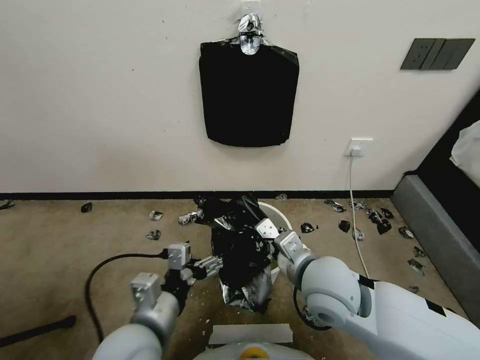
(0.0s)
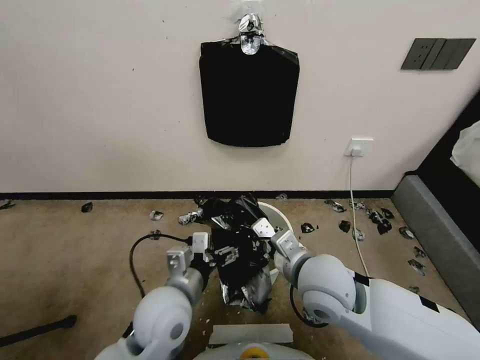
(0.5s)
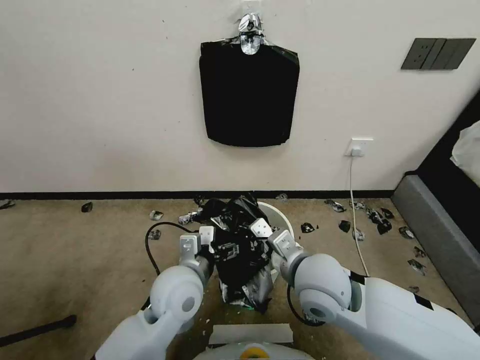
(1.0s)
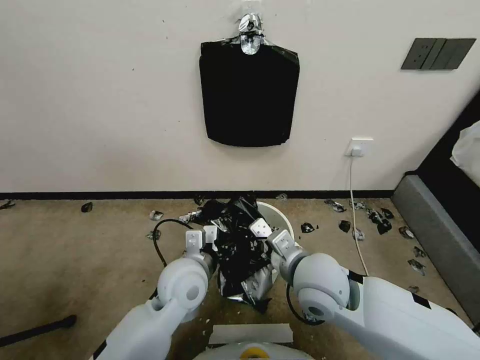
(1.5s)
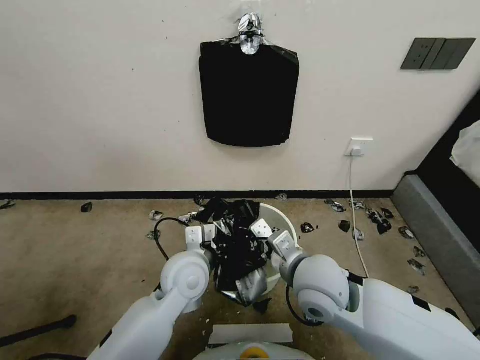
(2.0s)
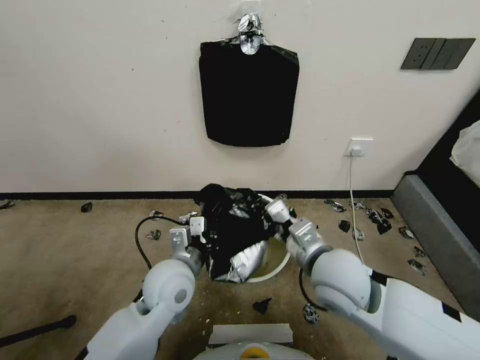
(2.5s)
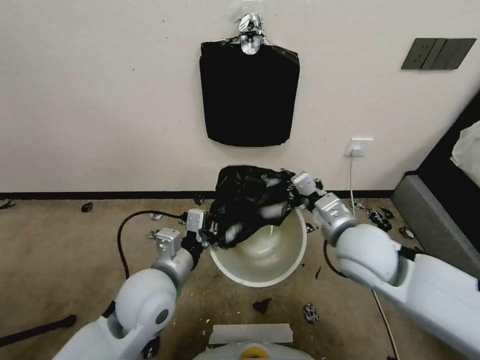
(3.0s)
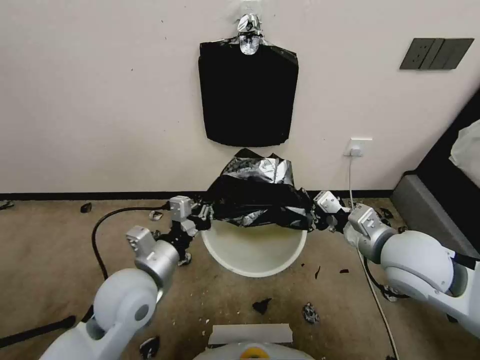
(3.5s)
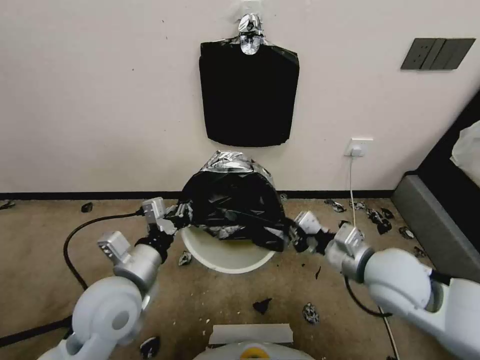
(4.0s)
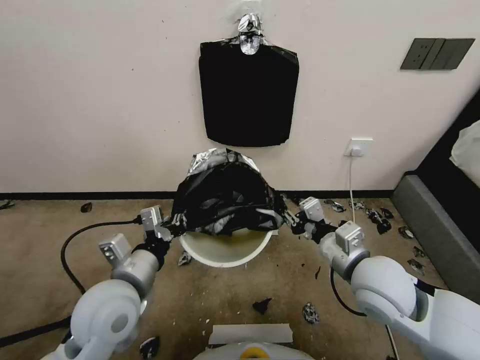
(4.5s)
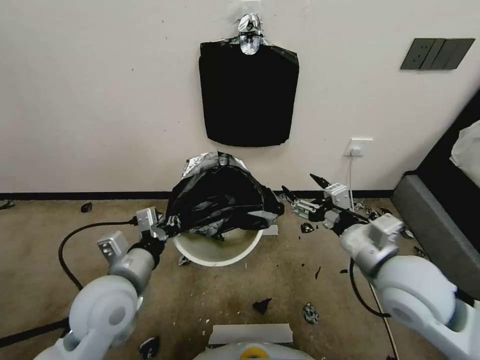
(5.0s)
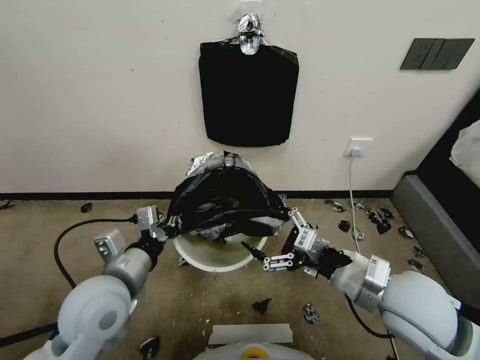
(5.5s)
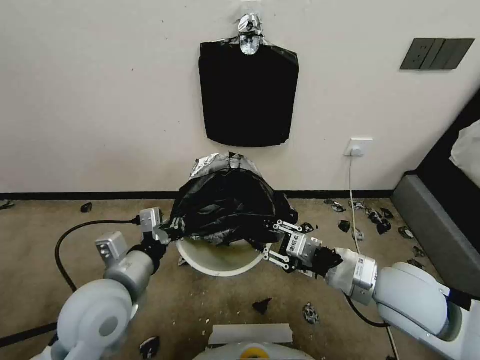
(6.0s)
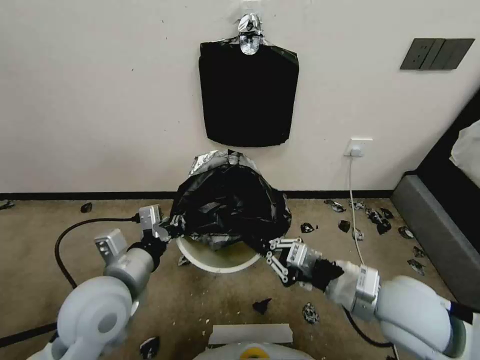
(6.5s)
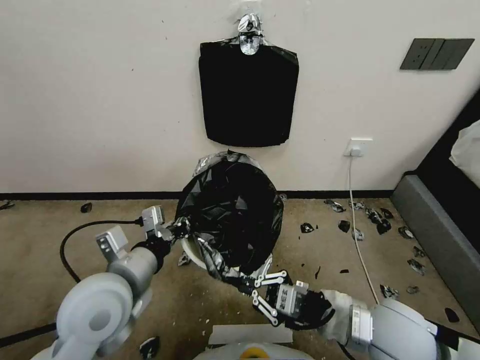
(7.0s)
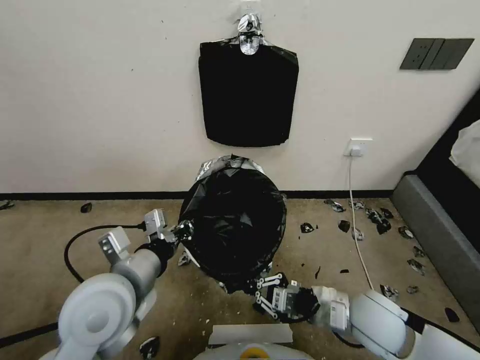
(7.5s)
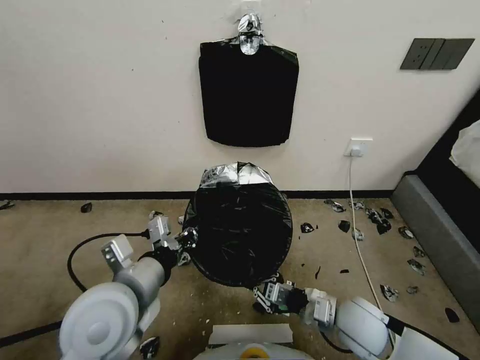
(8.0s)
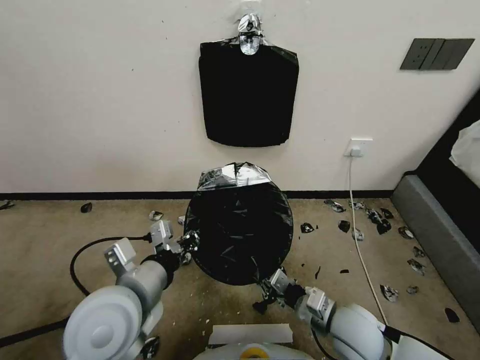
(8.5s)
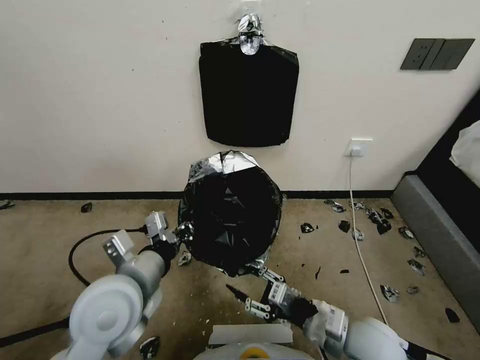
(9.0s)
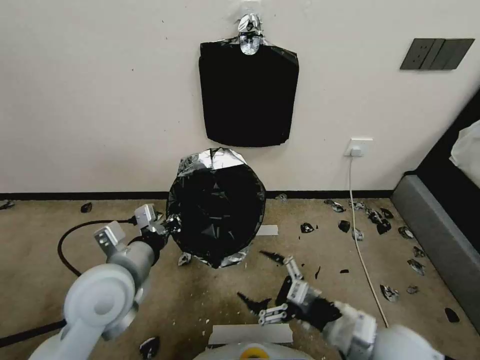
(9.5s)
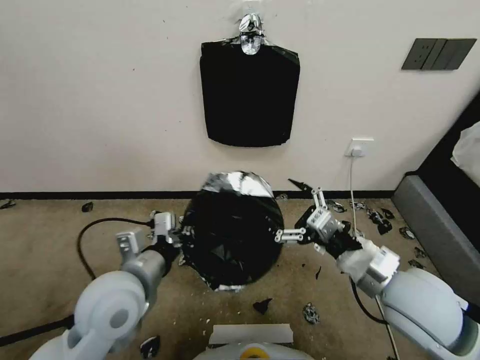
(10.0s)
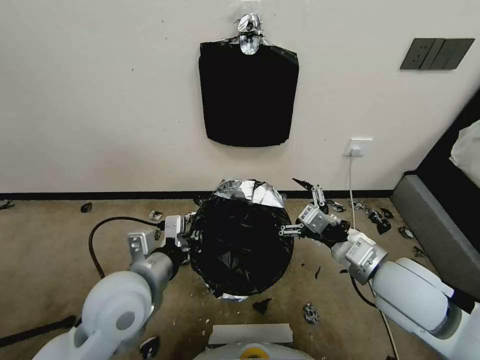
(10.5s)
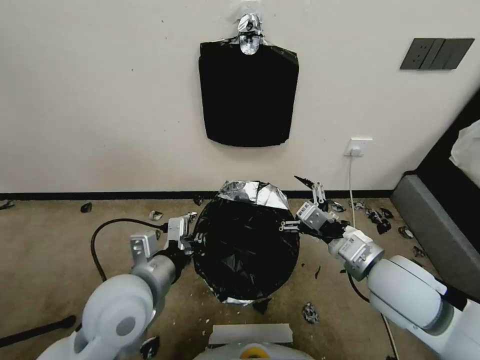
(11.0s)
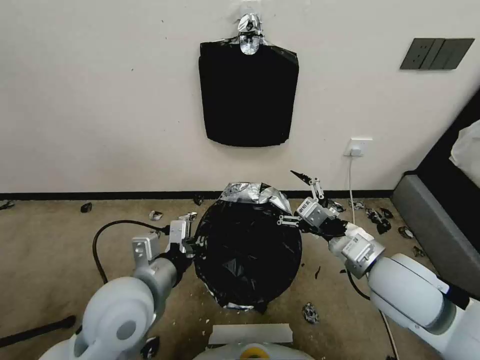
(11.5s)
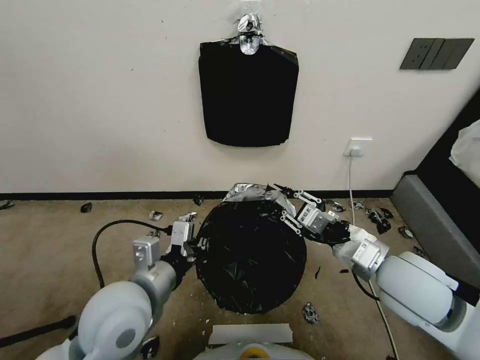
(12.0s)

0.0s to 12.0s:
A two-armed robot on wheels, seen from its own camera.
Task of the whole recording: Place a trash bag onto the trash bin.
0.0s to 2.0s: The left gripper goes approximately 15 cm forward and to the right, and closes its fingers.
2.0s to 4.0s: The right gripper shifts roughly 15 cm to the right. The left gripper shifts some 15 cm to the left, backward and upward.
4.0s to 6.0s: The right gripper opens and closes again.
6.0s to 8.0s: The right gripper heads downward, covering roughly 15 cm.
8.0s to 10.0s: The right gripper goes roughly 15 cm upward, and opens up.
10.0s to 12.0s: The right gripper closes its fingers.

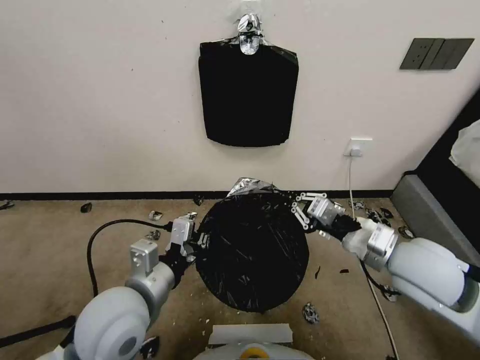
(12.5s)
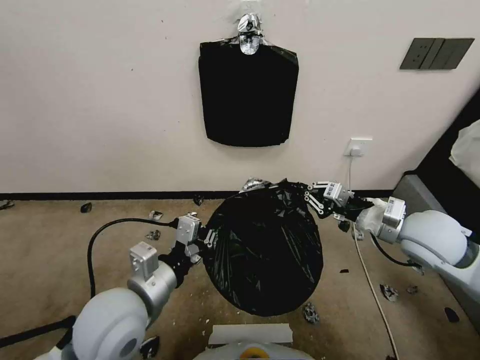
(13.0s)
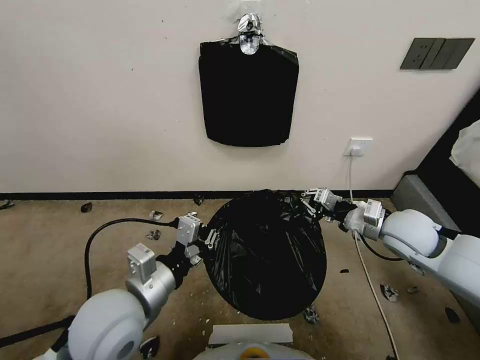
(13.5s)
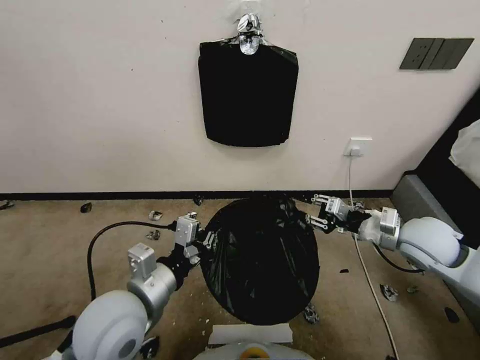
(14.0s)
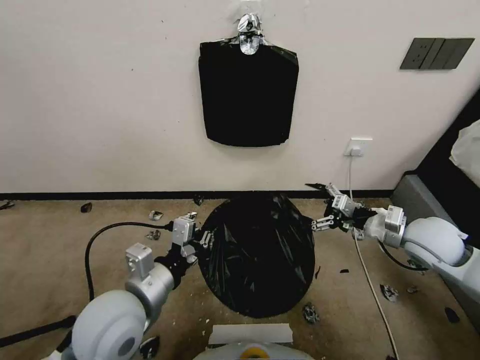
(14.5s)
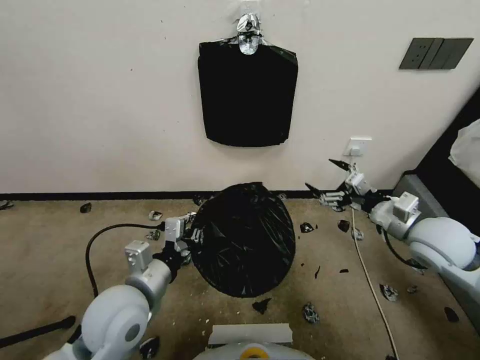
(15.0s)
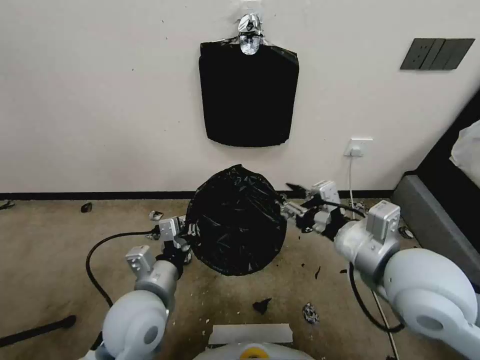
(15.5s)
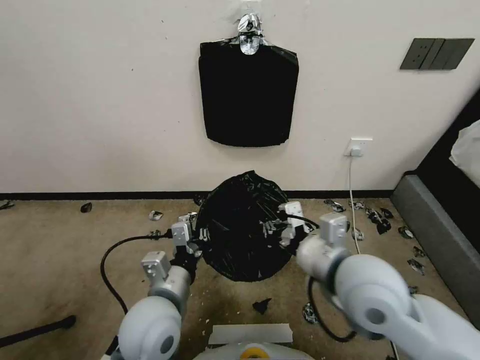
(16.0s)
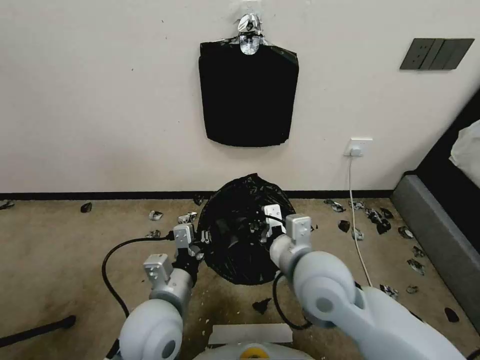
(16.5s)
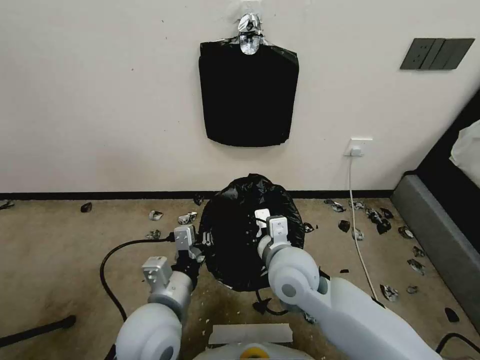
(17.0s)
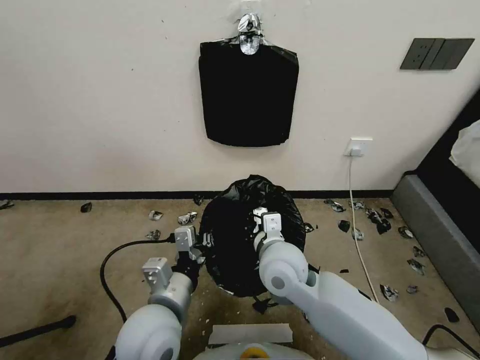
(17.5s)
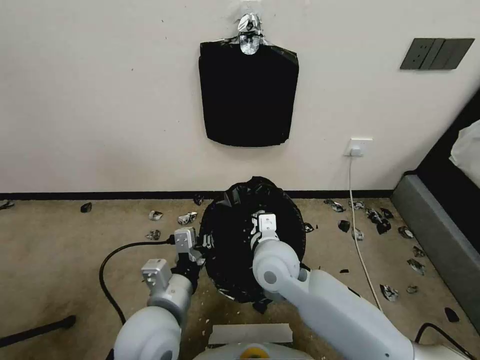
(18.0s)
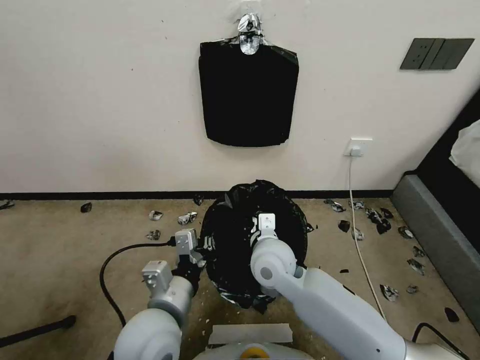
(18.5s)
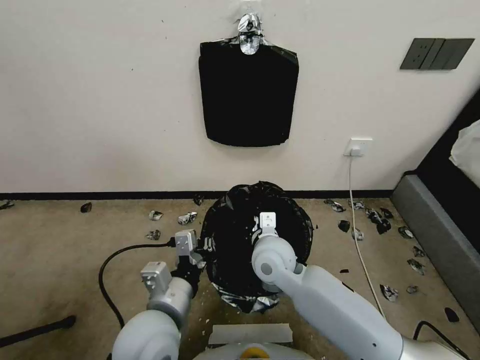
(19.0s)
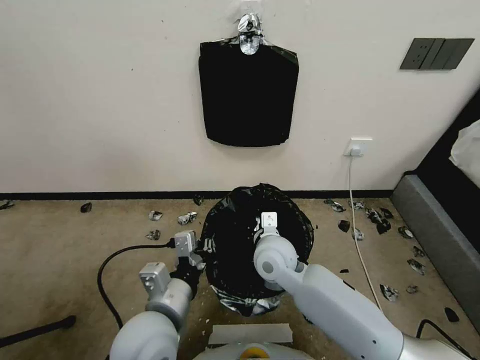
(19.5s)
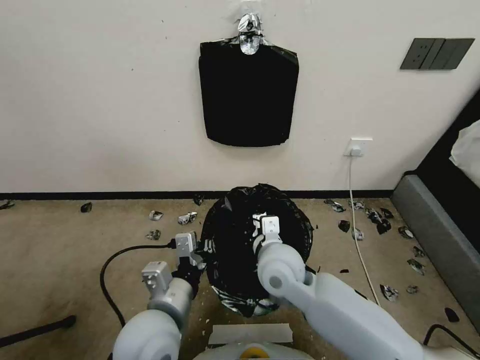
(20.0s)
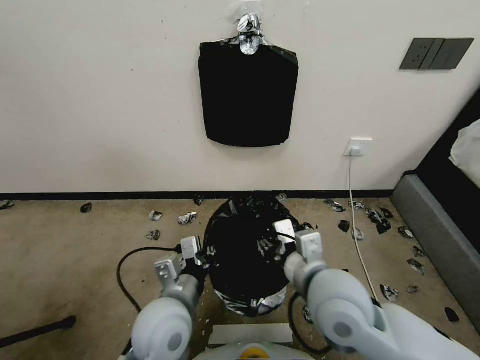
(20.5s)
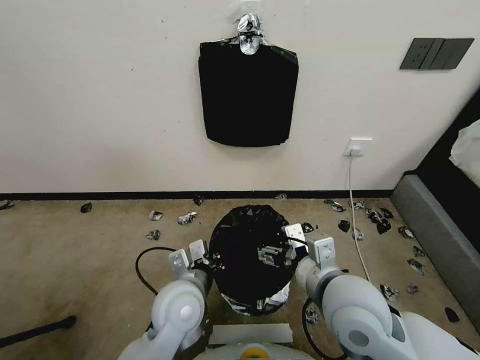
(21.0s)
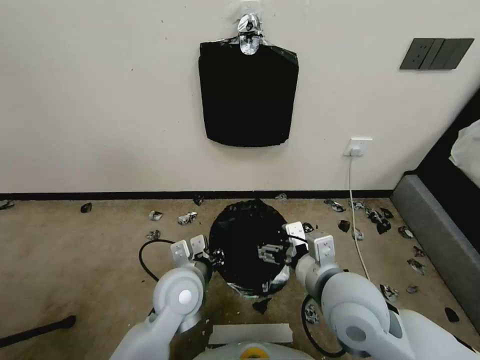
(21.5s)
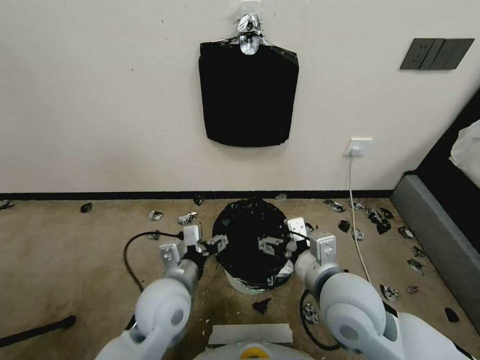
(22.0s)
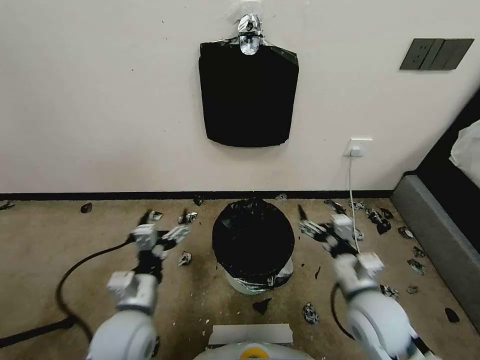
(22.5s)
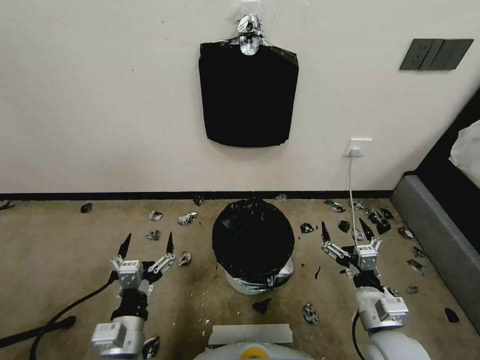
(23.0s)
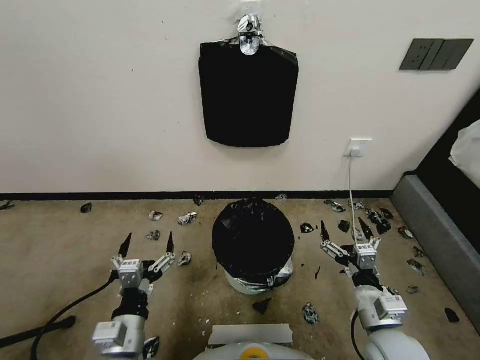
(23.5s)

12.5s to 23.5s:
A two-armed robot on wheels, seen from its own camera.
Task of the whole recording: Place a trash bag onto the trash bin.
12.5s to 14.5s: The right gripper moves to the right, forward and downward, about 15 cm, and opens its fingers.
14.5s to 16.0s: The right gripper moves to the left and backward, roughly 25 cm, and closes up; the left gripper moves some 5 cm.
16.0s to 18.0s: The right gripper is displaced to the left, downward and forward by approximately 20 cm.
18.0s to 20.0s: The grippers stay close to where they were, moving slightly.
20.0s to 21.5s: The left gripper moves forward, about 10 cm. Meanwhile the right gripper goes some 15 cm to the right, backward and upward, and opens.
21.5s to 23.5s: The right gripper moves downward and to the right, about 20 cm. Meanwhile the left gripper travels backward and to the left by about 15 cm, and opens up.
